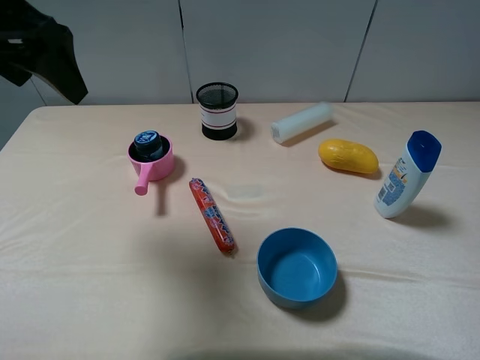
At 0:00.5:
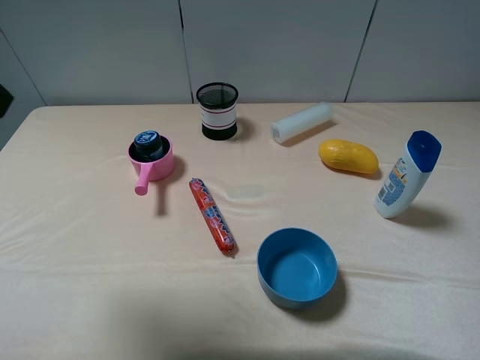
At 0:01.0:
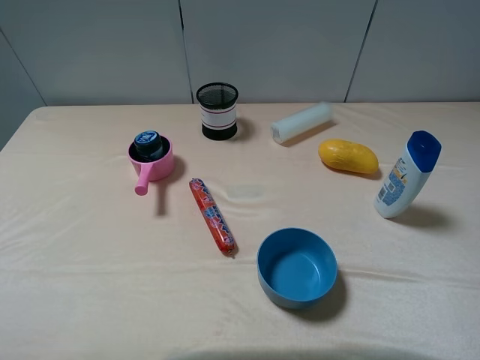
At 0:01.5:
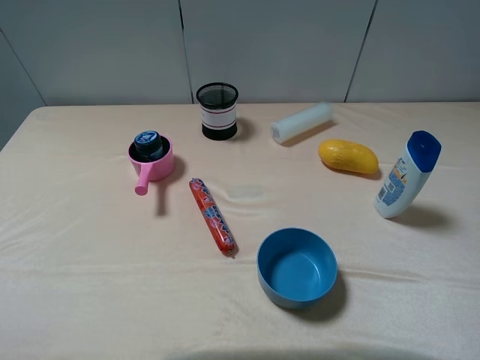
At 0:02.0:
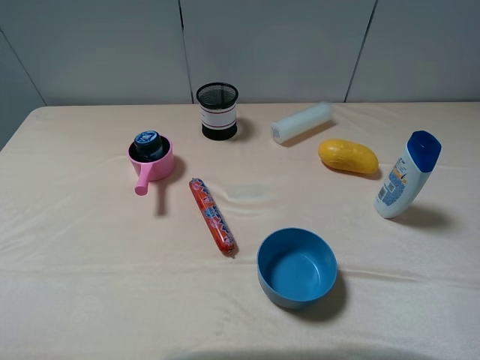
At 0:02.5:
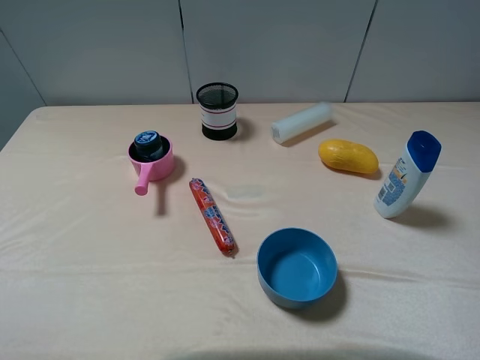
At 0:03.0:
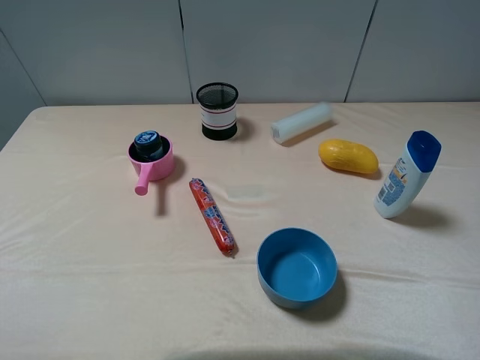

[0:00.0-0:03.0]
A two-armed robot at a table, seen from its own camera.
Task of the whole recording: pick up an item with a gripper and place it in a random container on the table.
0:00.0 to 0:01.5: The left gripper shifts roughly 25 cm backward.
